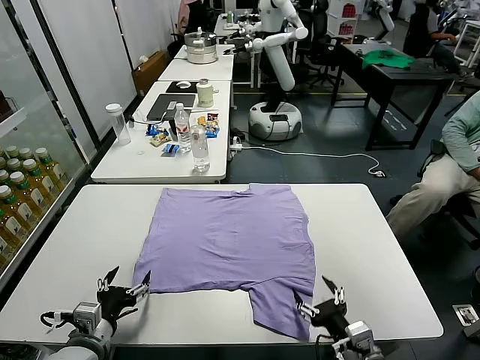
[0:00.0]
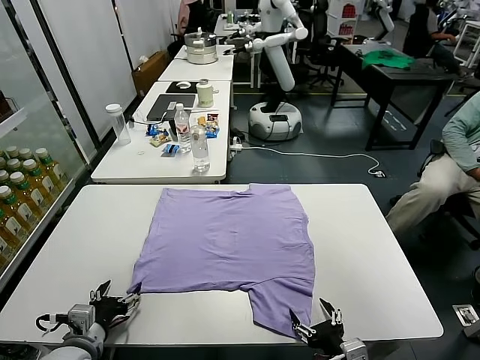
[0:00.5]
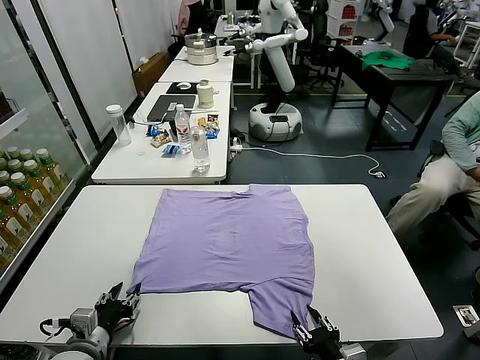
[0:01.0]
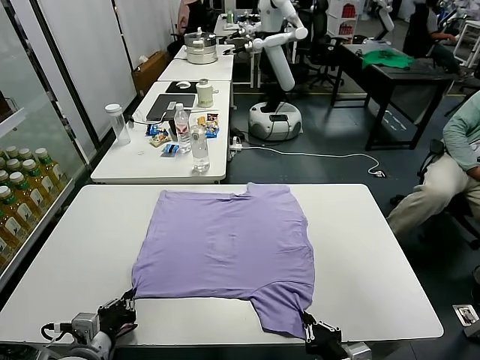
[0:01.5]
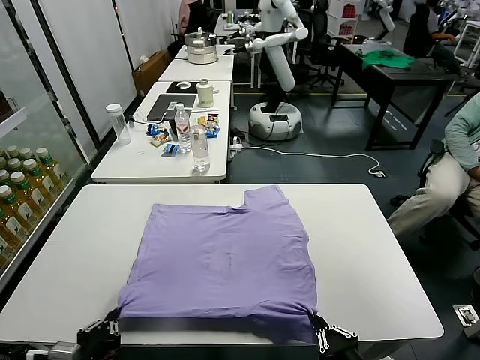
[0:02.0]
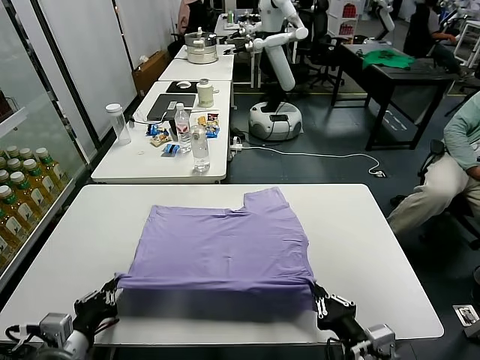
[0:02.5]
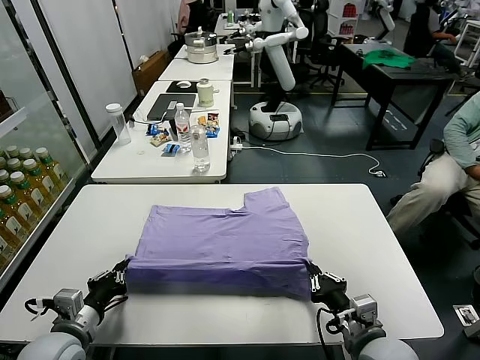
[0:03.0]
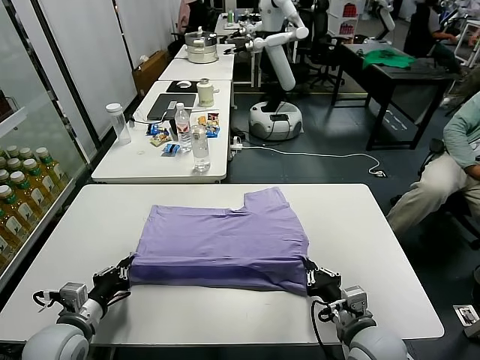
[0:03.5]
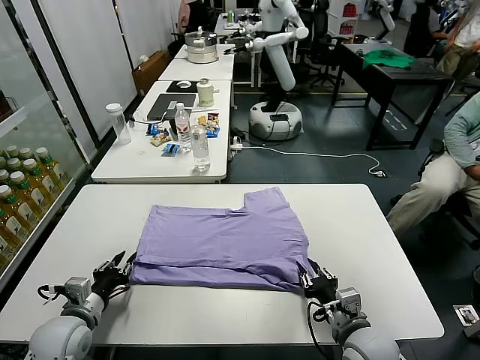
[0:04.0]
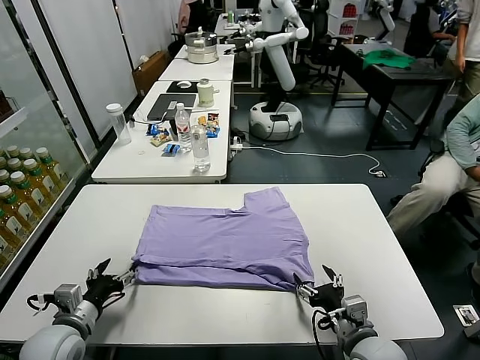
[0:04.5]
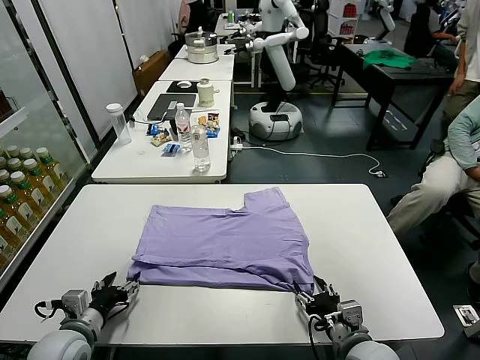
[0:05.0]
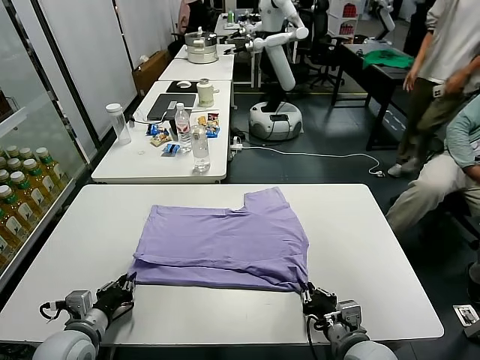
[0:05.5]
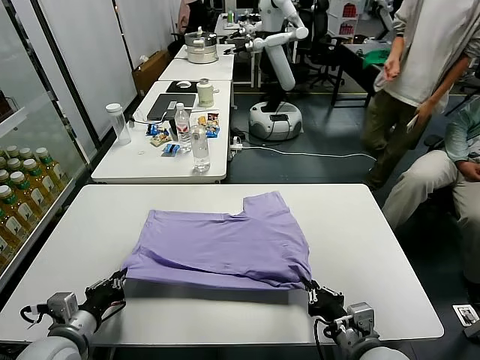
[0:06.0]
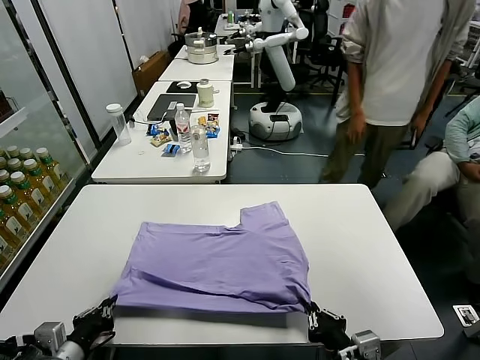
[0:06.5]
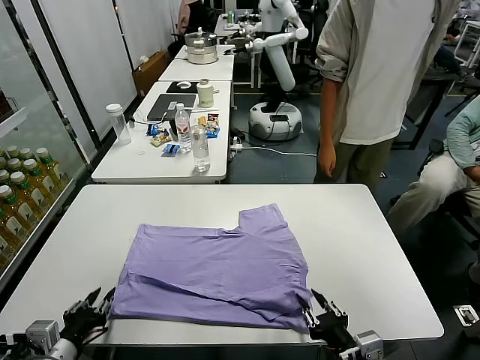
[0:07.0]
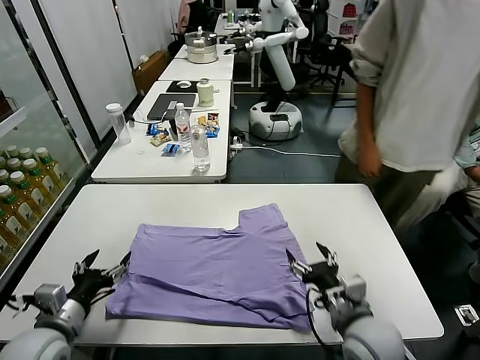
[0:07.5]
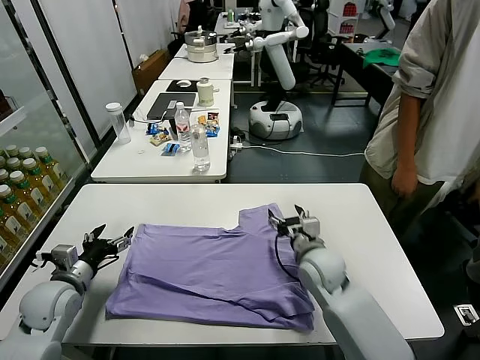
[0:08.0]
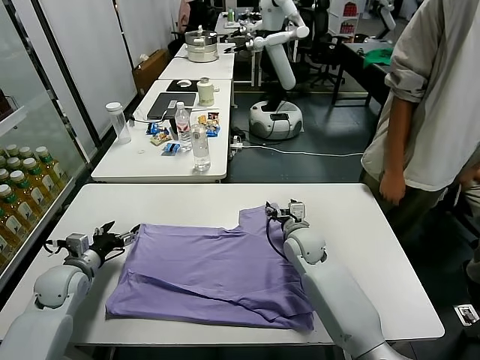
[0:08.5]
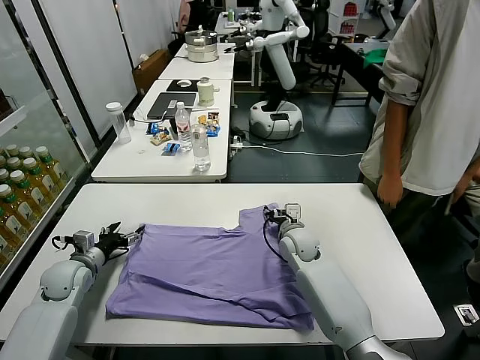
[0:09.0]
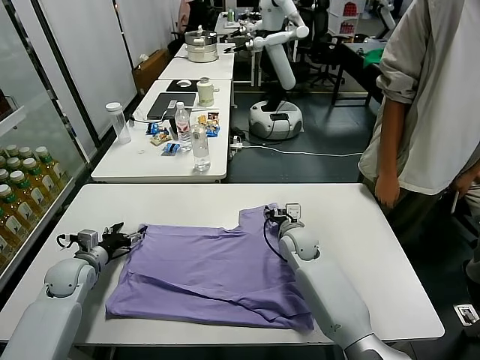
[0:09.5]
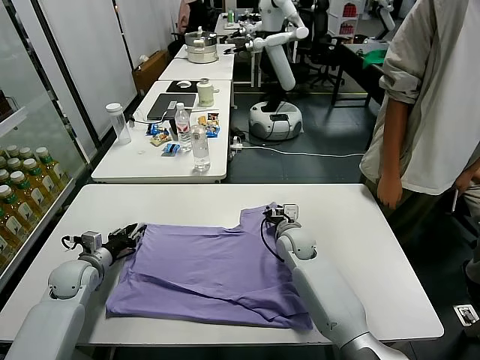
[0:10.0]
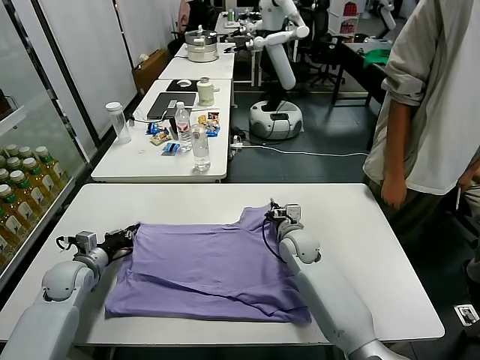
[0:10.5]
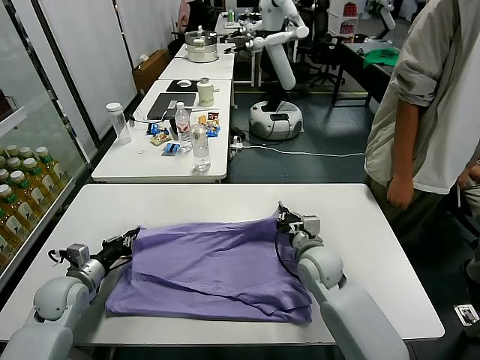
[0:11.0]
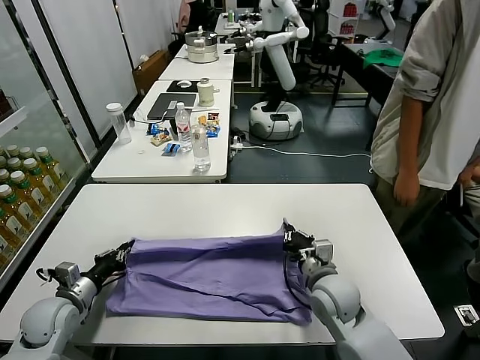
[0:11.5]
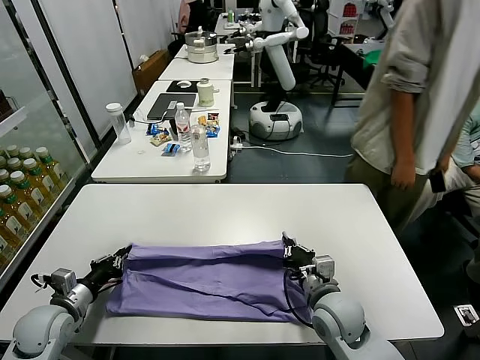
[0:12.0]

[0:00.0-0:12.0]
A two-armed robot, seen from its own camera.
Task of the whole recording: fold and organize the clothes.
Step, 0:00.0 to 0:01.5: use both grippers simultaneously to clamp the lower edge of the clothing fabric.
Step, 0:02.0 to 0:04.0: use both grippers to drag the lower edge of the fabric forward and fold it over the upper edge.
Step, 0:04.5 to 0:07.0: Drag the clothes downward with both gripper.
Step, 0:07.5 to 0:10.0: use both grippers simultaneously to clamp the upper edge of the clothing fabric.
0:02.0 to 0:04.0: The right gripper shifts approximately 15 cm forward and downward, and opens; the left gripper moves forward, some 15 cm, and opens its fingers.
0:04.0 to 0:06.0: The grippers both shift backward by approximately 5 cm. The left gripper closes up; the right gripper closes up.
0:06.0 to 0:08.0: The right gripper is displaced forward by roughly 25 cm, and opens its fingers, while the left gripper goes some 15 cm forward and to the left, and opens.
0:08.0 to 0:10.0: Both grippers move forward and downward, some 10 cm. The left gripper closes. Meanwhile the right gripper closes its fingers.
0:10.0 to 0:12.0: The left gripper travels backward by approximately 10 cm, and closes its fingers; the right gripper is displaced backward by approximately 20 cm, and closes.

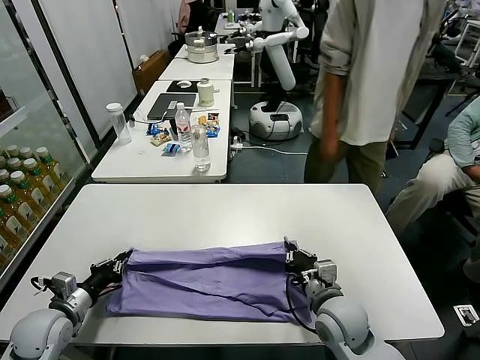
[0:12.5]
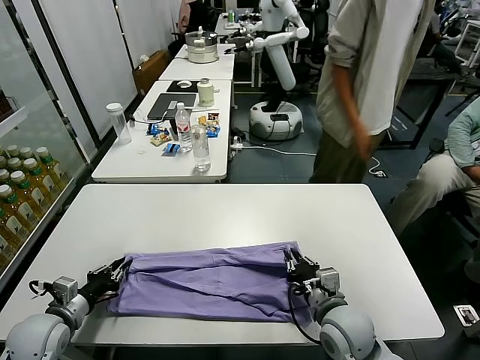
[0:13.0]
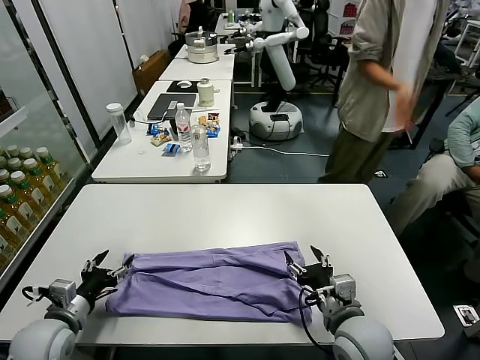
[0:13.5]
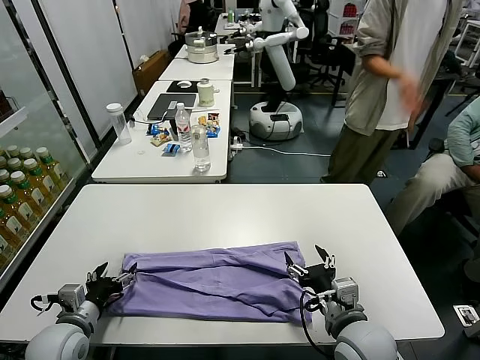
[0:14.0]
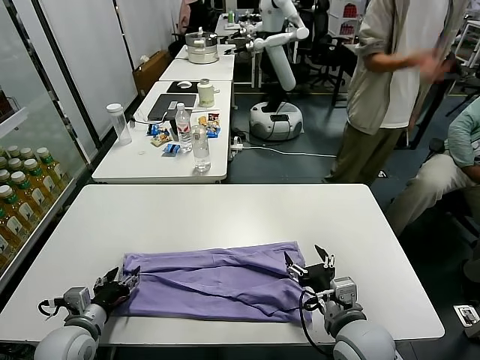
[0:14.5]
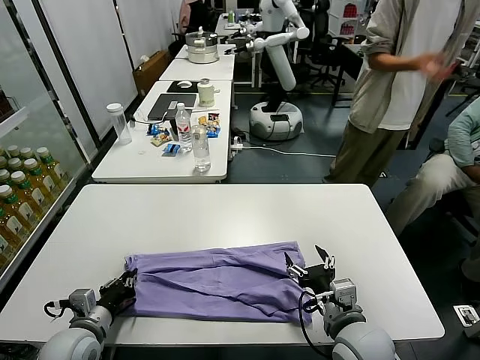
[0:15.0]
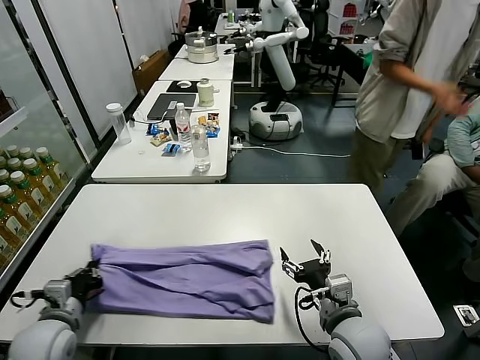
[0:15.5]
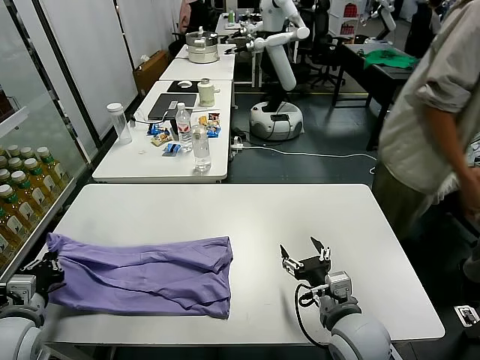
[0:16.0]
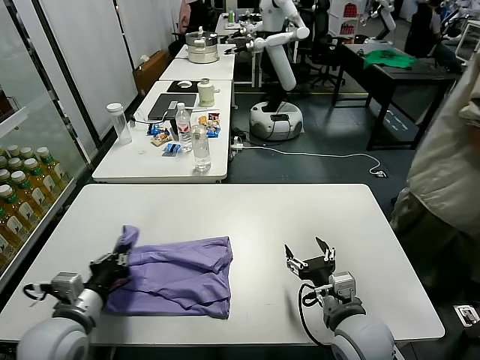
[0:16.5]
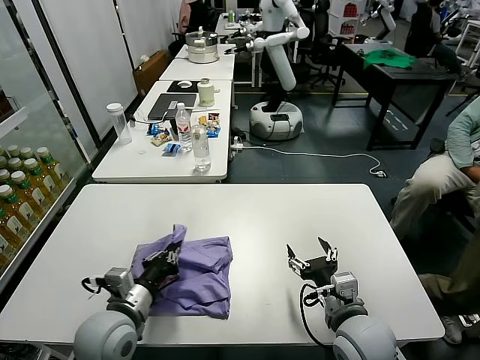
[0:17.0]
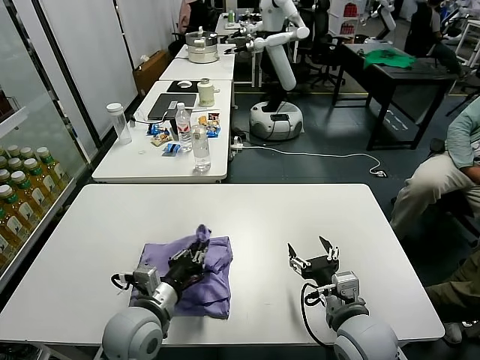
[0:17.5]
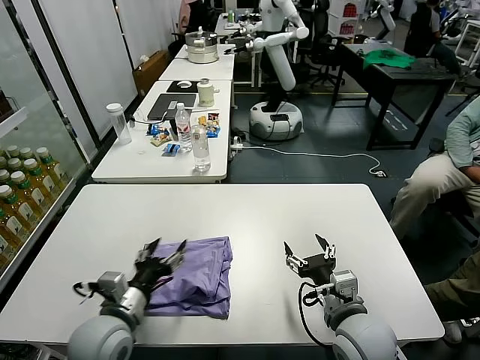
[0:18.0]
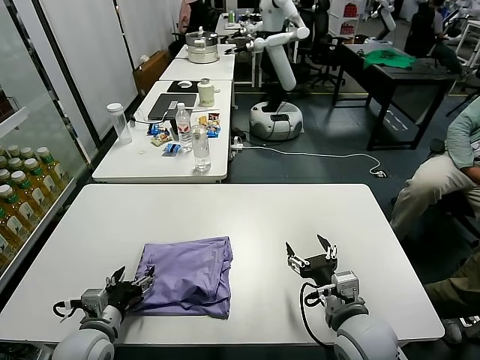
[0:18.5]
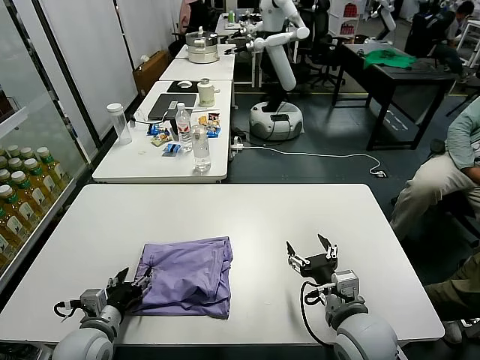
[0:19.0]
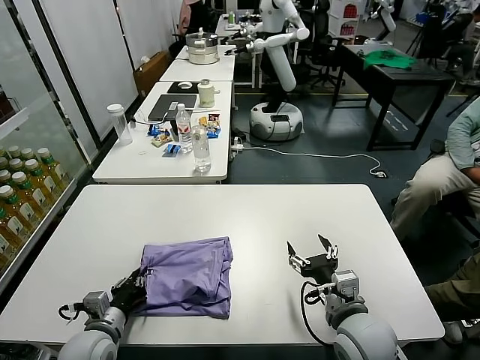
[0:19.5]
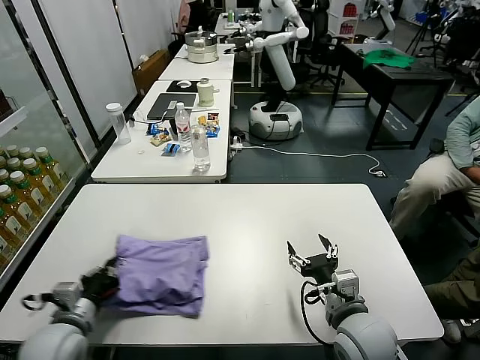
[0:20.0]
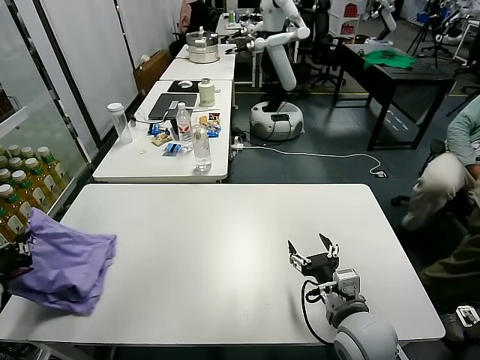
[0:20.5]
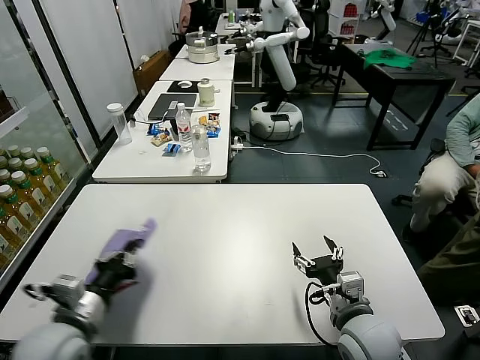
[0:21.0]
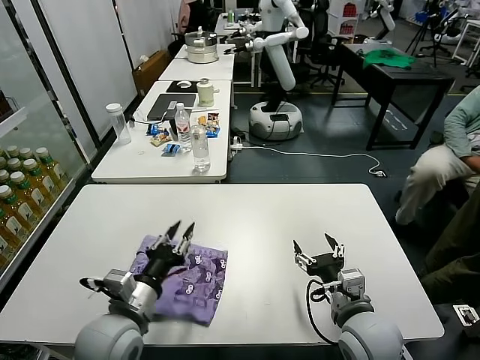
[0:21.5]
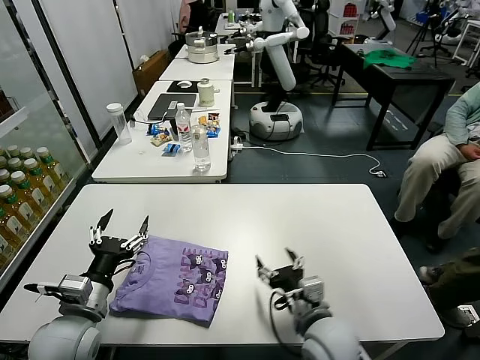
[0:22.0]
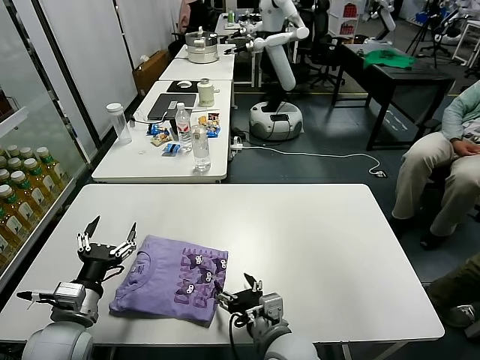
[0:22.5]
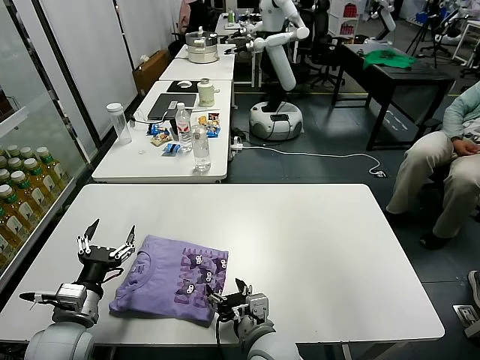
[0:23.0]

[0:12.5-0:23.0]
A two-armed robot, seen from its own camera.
Task of the whole recording: fold and organize the clothes.
Step, 0:13.5 to 0:15.0: use the left gripper to clamp the left edge of the fabric.
Step, 0:15.5 to 0:17.5: use the left gripper to drag the left edge of the fabric to the left and folds it over the right edge.
Step, 0:18.0 to 0:22.0: Flip the folded clothes over with left gripper.
0:12.5 to 0:14.5: The right gripper is displaced backward by about 5 cm, and opens; the left gripper goes some 5 cm to the right, and opens.
0:14.5 to 0:16.5: The left gripper shifts some 10 cm upward, travels to the left and back again, some 5 cm each way, and closes its fingers.
0:16.5 to 0:19.0: The left gripper shifts some 10 cm downward, goes to the right and returns, roughly 10 cm each way, and opens.
0:19.0 to 0:21.0: The left gripper travels upward by approximately 10 cm, moves some 15 cm to the left and comes back, and closes its fingers.
0:21.0 to 0:23.0: The right gripper heads to the left, covering approximately 15 cm. The left gripper is displaced downward by about 5 cm, reaches approximately 10 cm to the right, then returns, and opens.

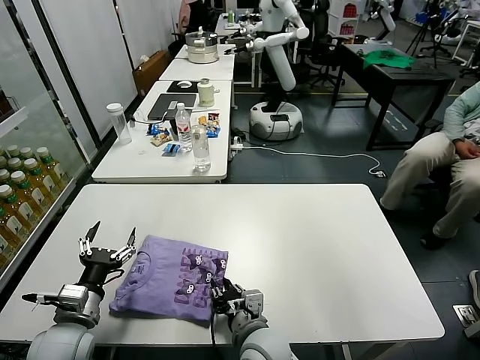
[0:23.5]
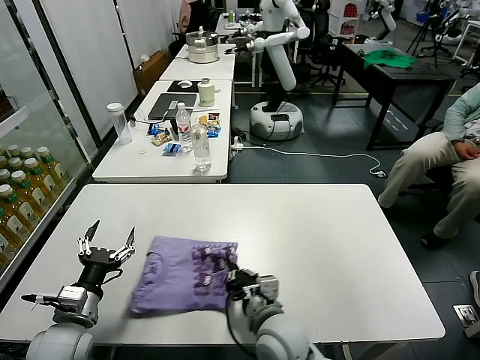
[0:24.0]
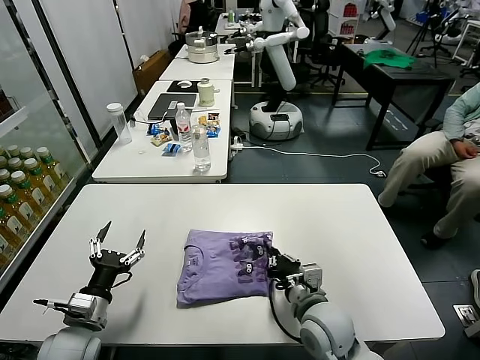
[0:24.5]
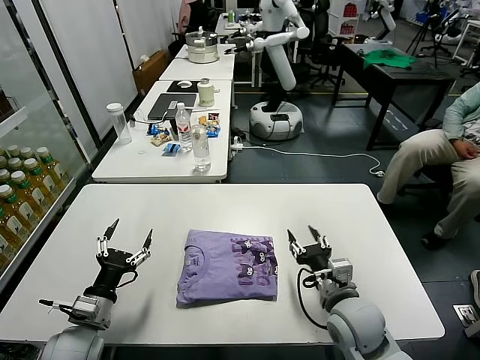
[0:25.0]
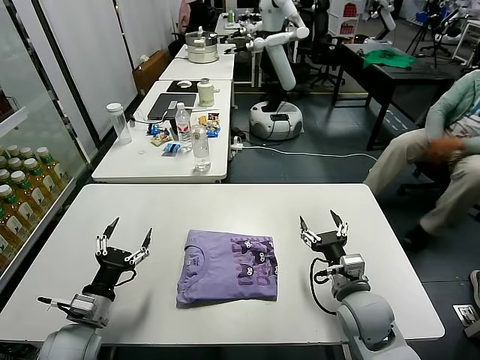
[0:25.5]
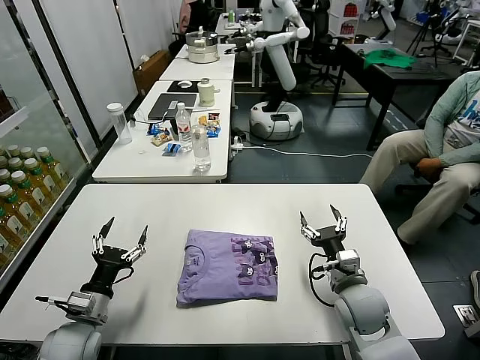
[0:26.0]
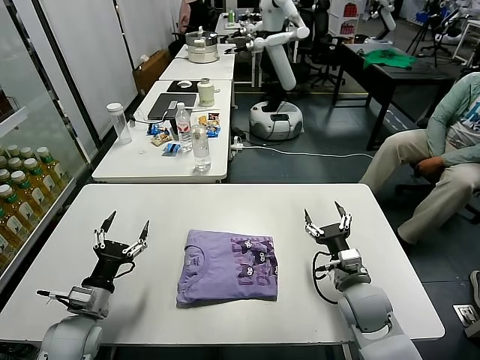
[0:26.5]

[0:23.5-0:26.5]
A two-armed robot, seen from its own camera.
Task of the whole recording: fold and organize the clothes.
0:23.5 to 0:25.0: The right gripper shifts approximately 15 cm to the right, and closes and opens again.
0:25.0 to 0:26.5: The right gripper shifts by some 5 cm.
